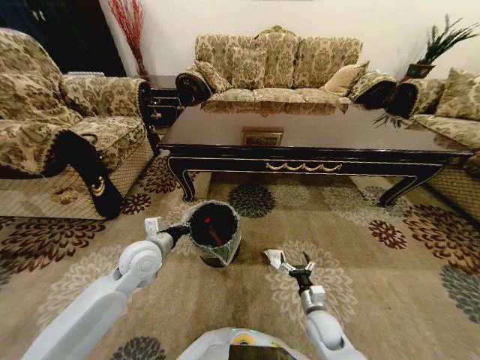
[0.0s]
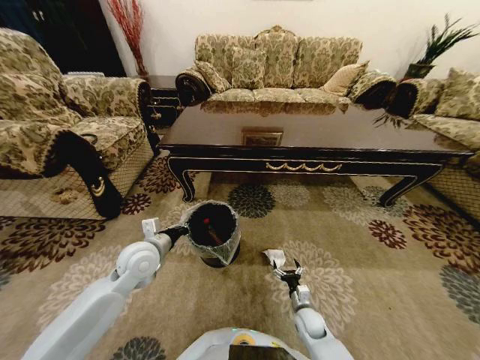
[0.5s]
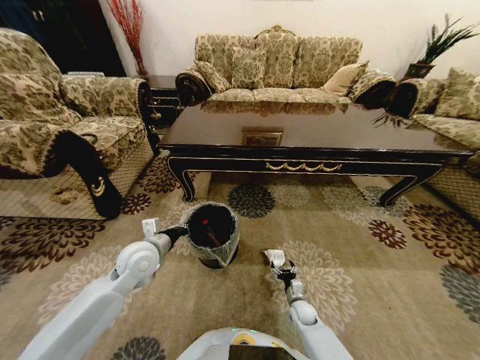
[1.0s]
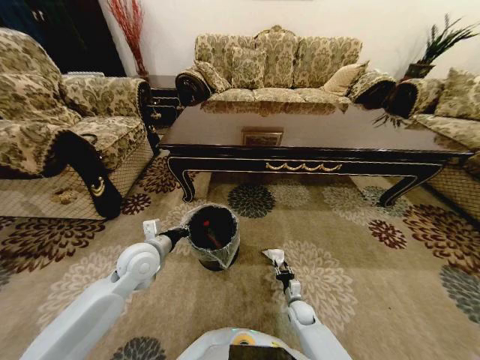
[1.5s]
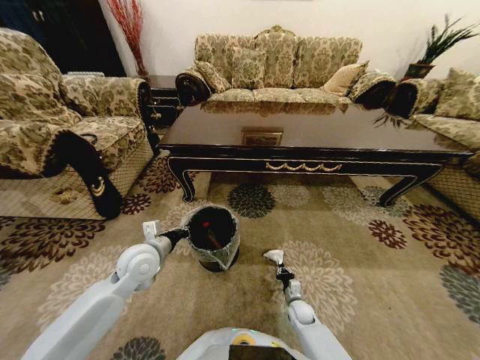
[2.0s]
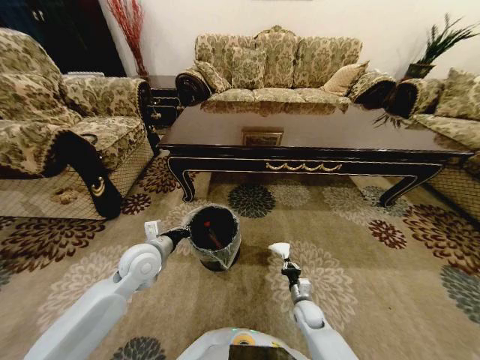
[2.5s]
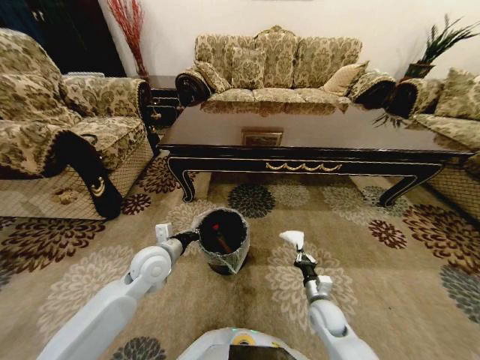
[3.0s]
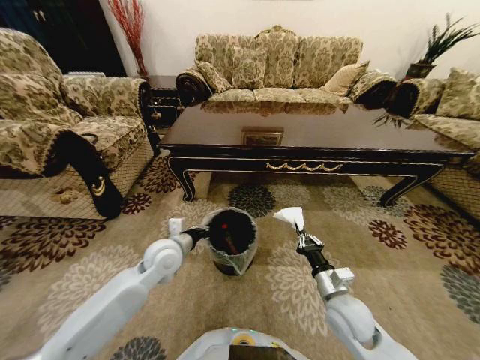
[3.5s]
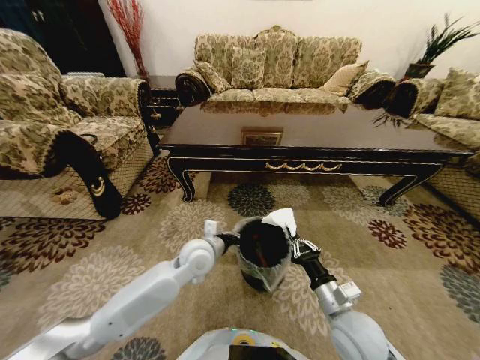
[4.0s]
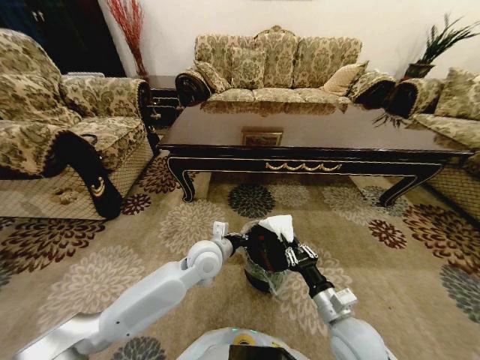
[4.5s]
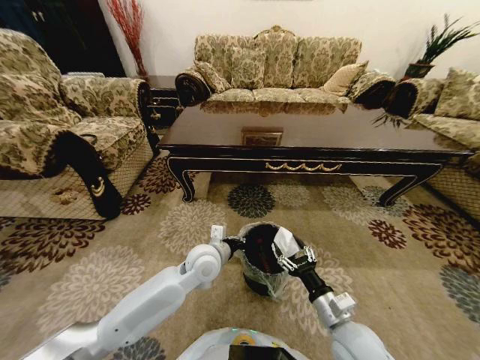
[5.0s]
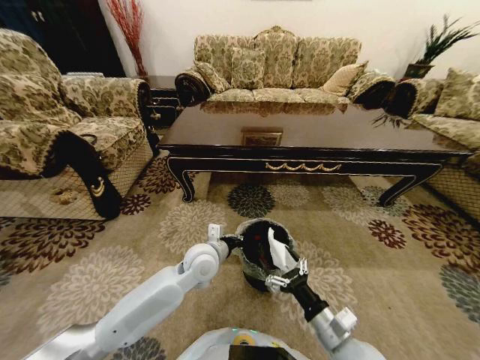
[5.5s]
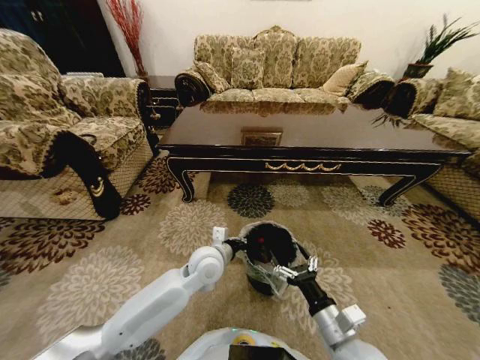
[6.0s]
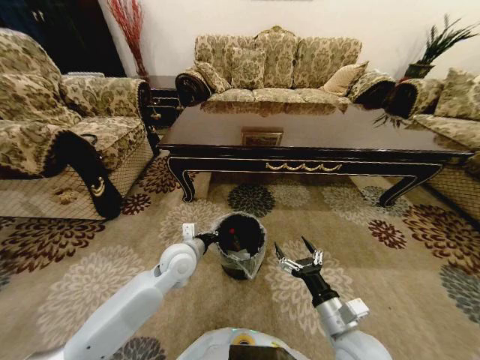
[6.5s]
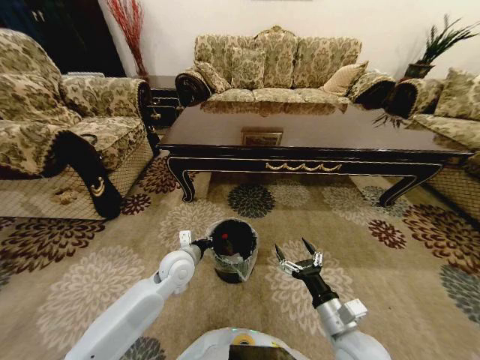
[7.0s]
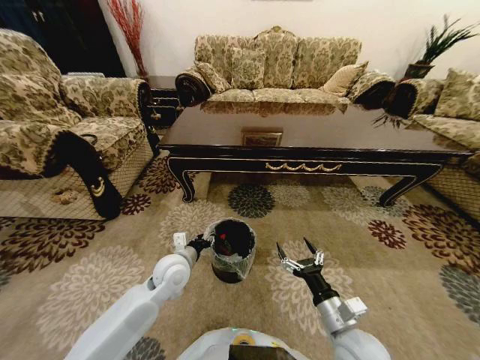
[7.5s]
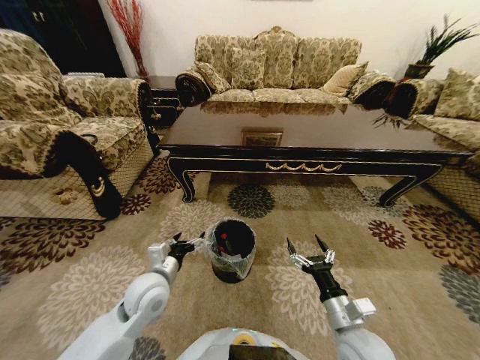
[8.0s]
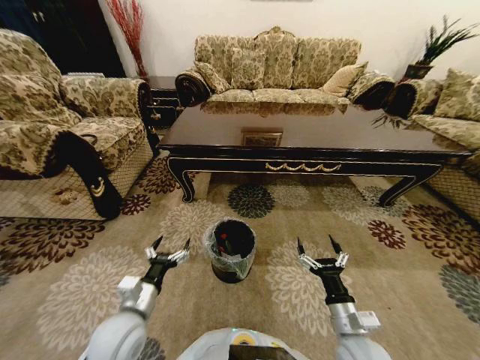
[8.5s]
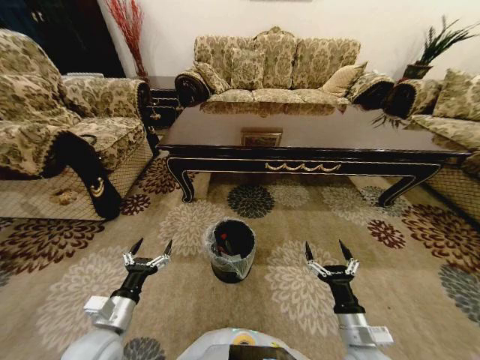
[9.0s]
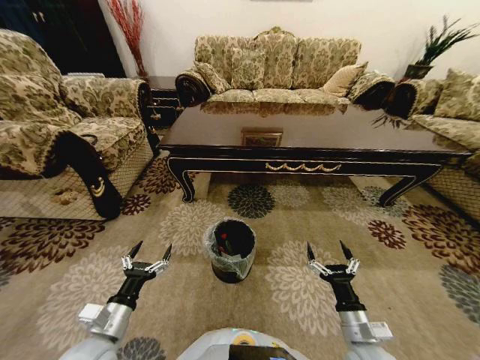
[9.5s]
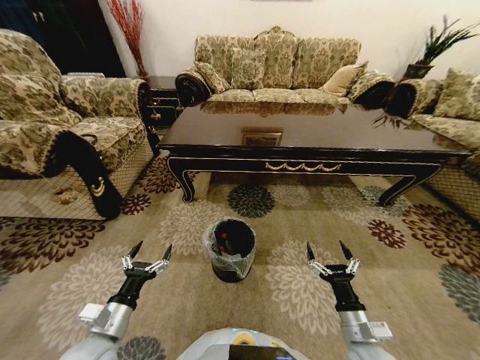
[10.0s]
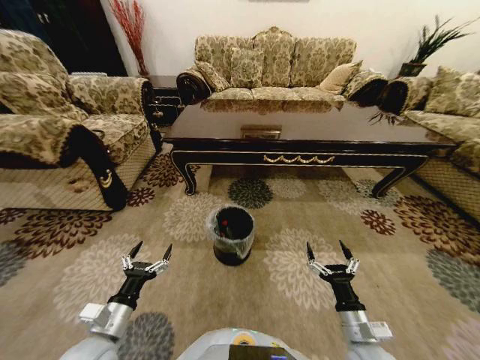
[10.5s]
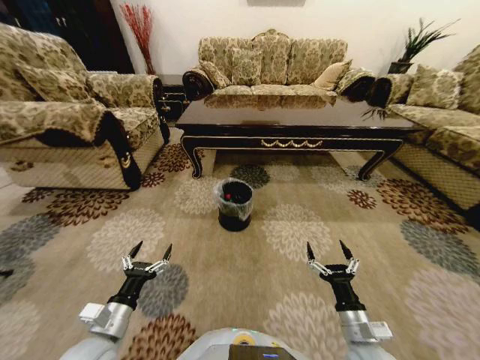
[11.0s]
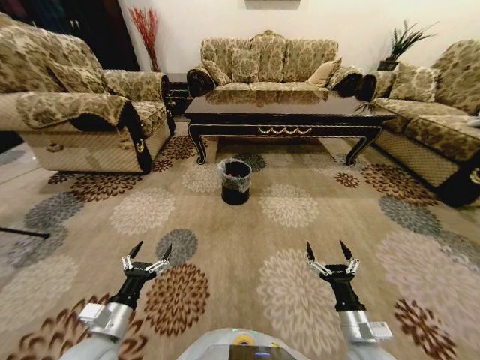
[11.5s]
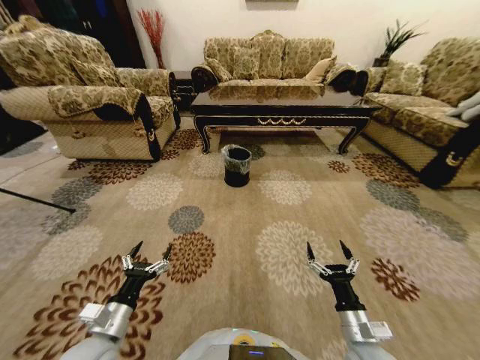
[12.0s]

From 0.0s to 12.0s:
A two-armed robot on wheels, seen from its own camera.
Task of the whole recording: Move to the front of the table and pick up the trash from the floor, then place it into the trash bin.
From 0.0s to 2.0s: The right gripper heads downward and forward, covering roughly 15 cm, and closes its fingers.
From 2.0s to 4.0s: The left gripper heads to the right, covering approximately 15 cm. The right gripper travels upward by approximately 30 cm.
From 4.0s to 6.0s: The right gripper shifts approximately 5 cm backward, and opens up.
From 6.0s to 8.0s: The left gripper heads to the left and backward, covering approximately 15 cm, and opens its fingers.
From 8.0s to 10.0s: The left gripper travels backward and to the left by some 15 cm. Meanwhile the right gripper moves roughly 5 cm.

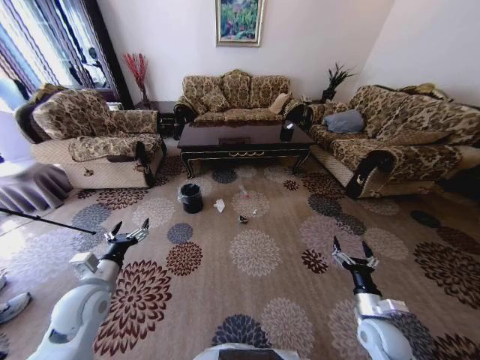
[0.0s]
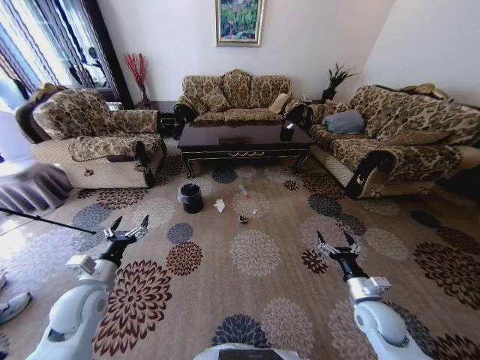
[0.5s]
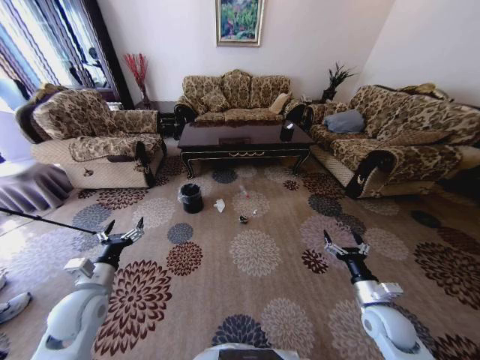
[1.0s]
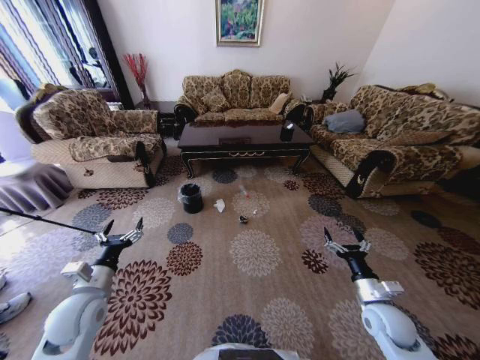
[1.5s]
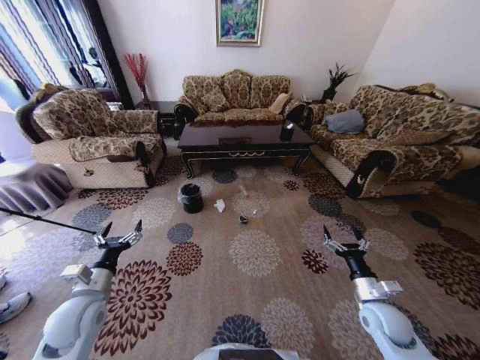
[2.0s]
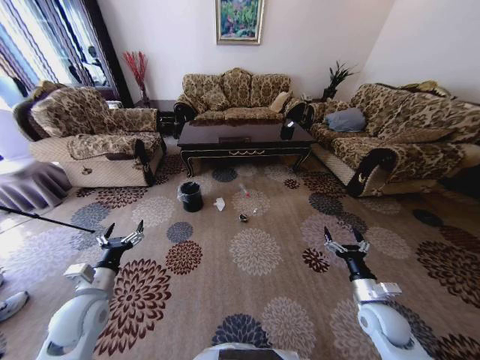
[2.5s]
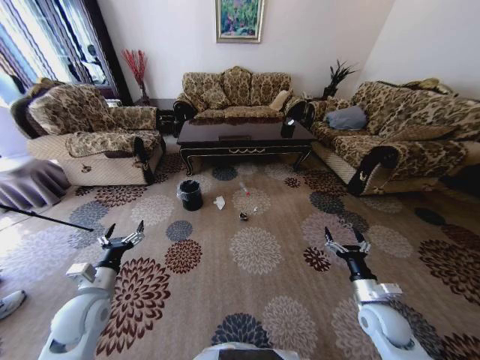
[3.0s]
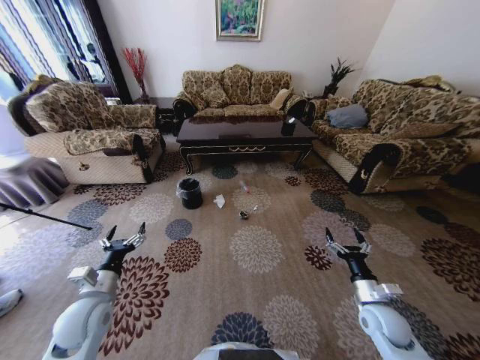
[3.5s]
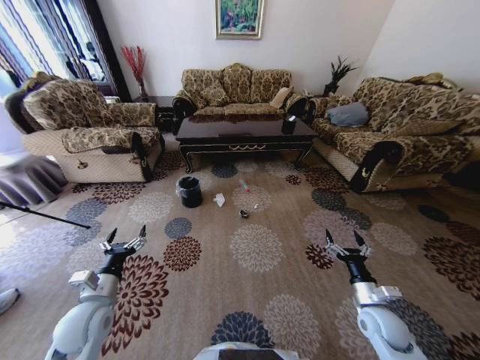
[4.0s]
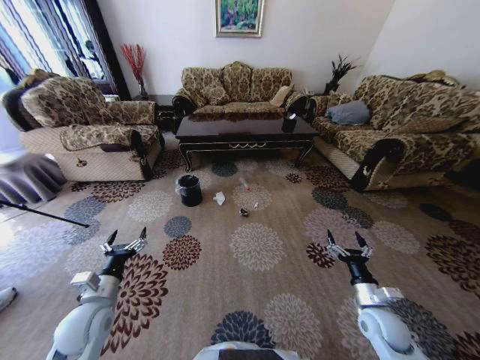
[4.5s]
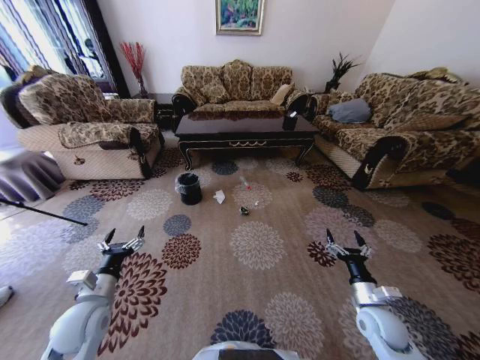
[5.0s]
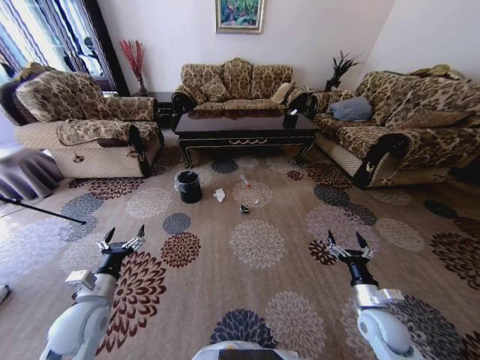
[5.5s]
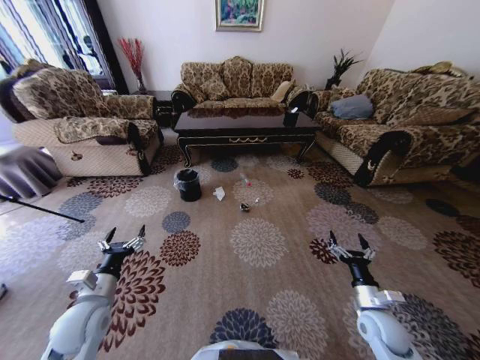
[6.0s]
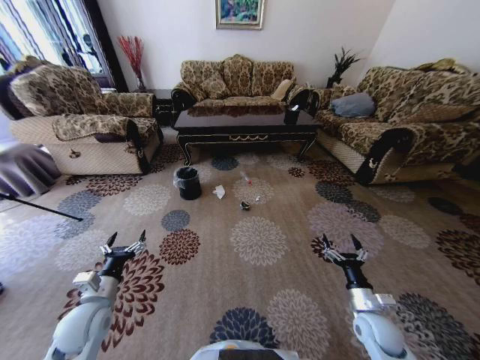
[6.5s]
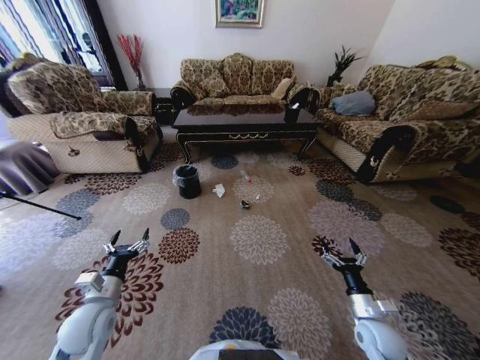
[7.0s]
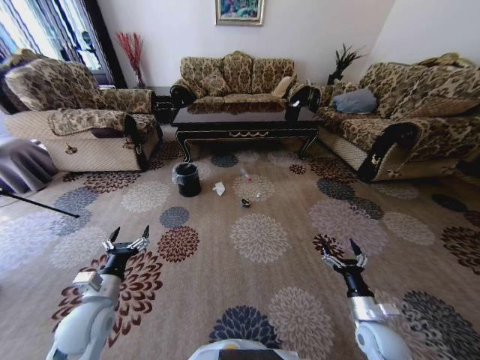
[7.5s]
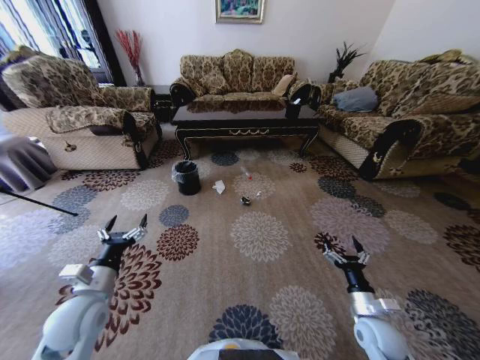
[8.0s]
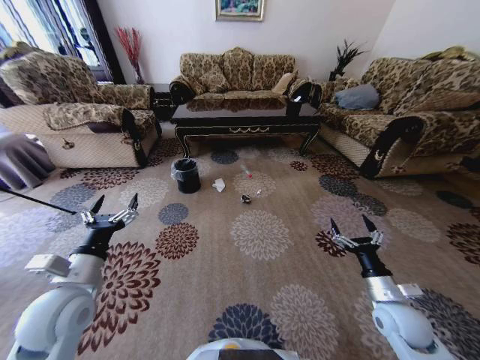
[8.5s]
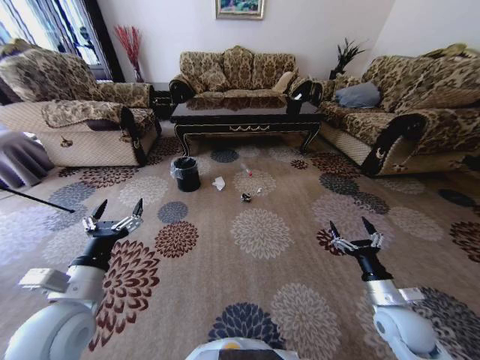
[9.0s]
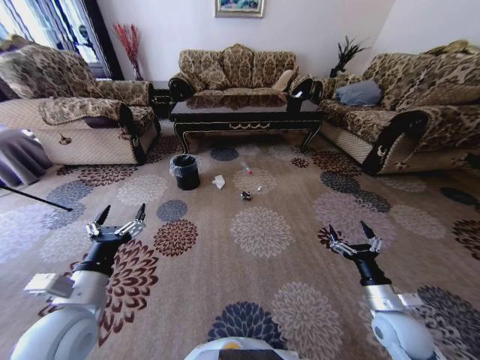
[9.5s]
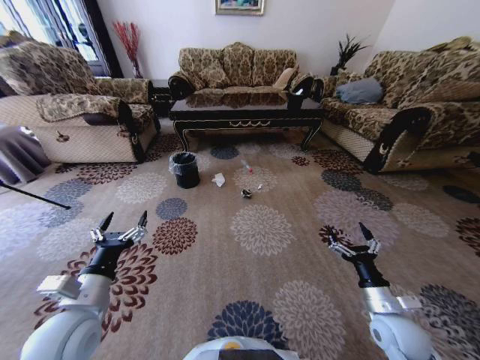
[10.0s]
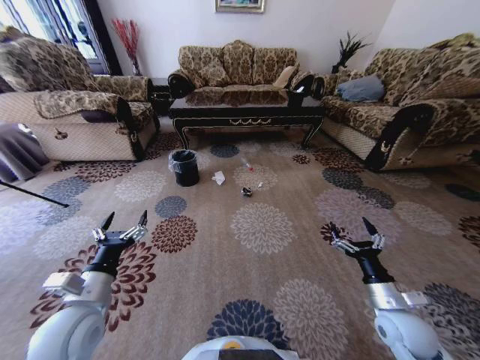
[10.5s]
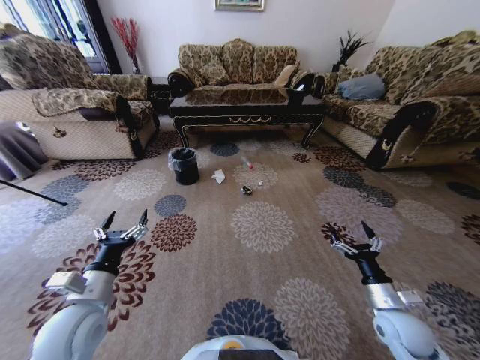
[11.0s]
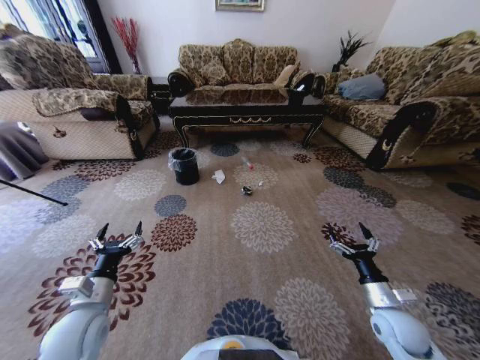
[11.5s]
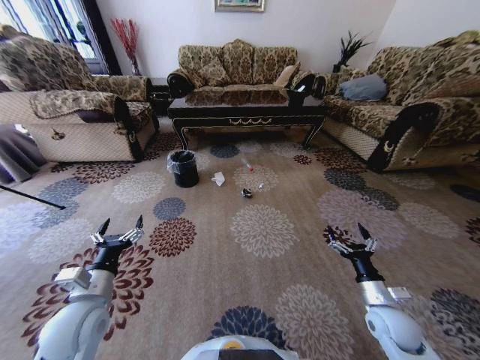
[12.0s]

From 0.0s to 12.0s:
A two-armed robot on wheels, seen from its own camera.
Task of the whole recording: Move to the front of the table and pick up the trash from the floor, then place it into the trash bin.
From 8.0s to 10.0s: The left gripper moves some 5 cm; the right gripper heads upward, covering roughly 5 cm.
From 10.0s to 12.0s: The grippers move only a little.

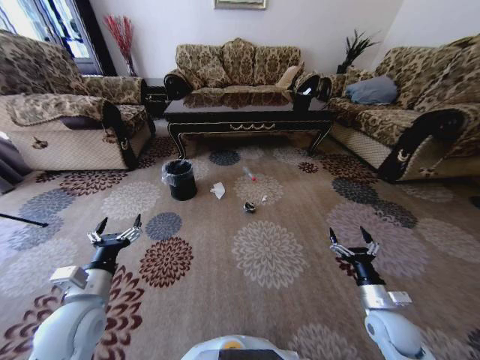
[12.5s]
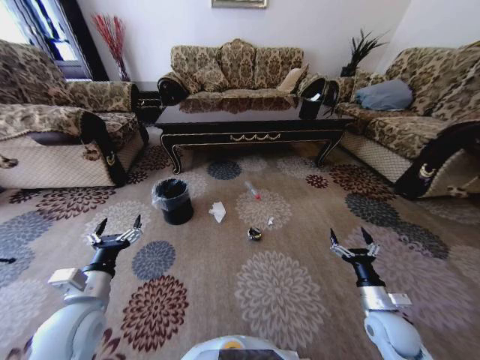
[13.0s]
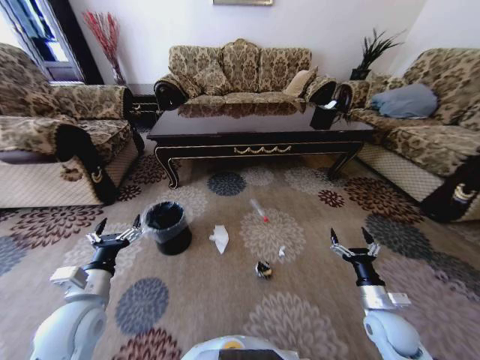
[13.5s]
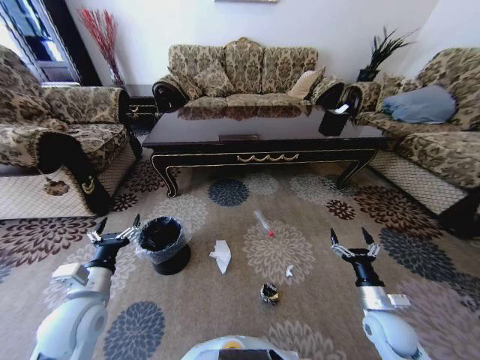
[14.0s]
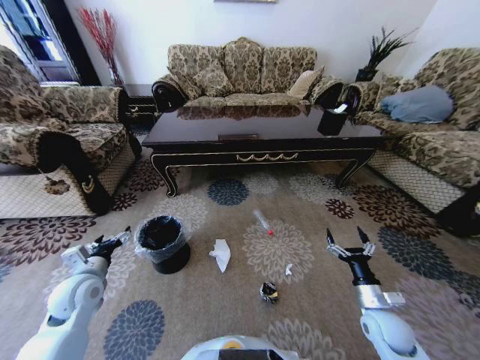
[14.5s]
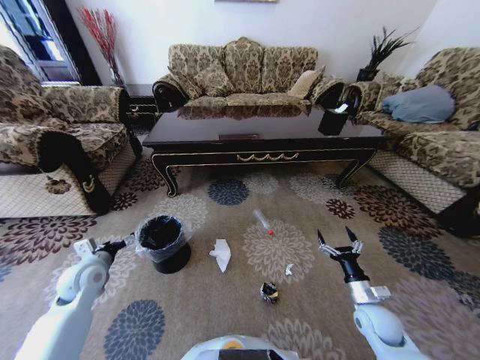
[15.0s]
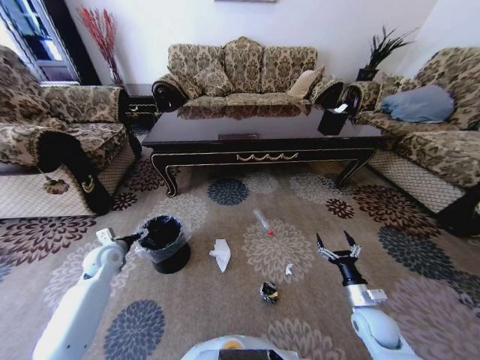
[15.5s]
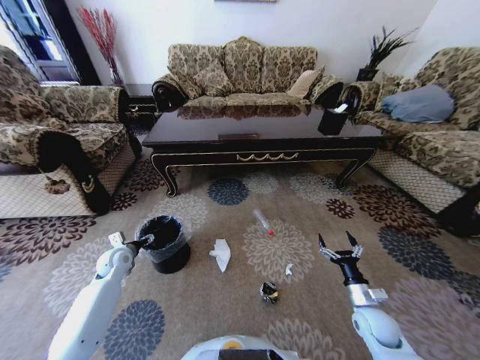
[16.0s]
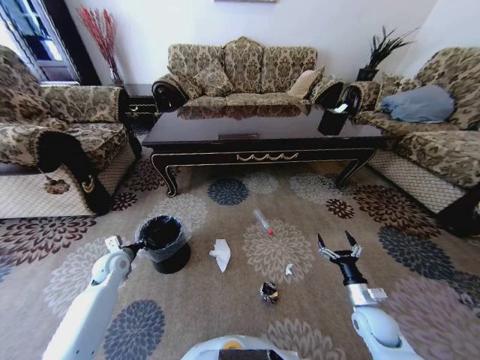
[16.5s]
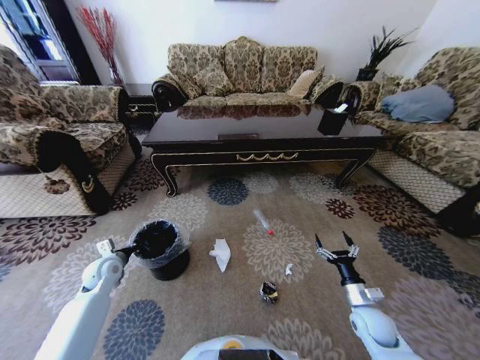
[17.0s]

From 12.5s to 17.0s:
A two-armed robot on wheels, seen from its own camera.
Task of the whole recording: Move to the front of the table and pick up the trash from the floor, then place it into the trash bin.
From 12.5s to 14.5s: The left gripper heads forward and to the left, covering approximately 10 cm.
From 14.5s to 17.0s: The left gripper travels forward and downward by approximately 10 cm, and closes its fingers.
